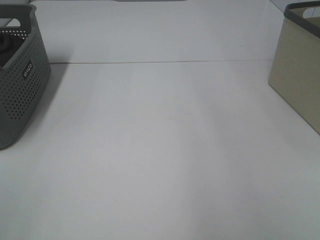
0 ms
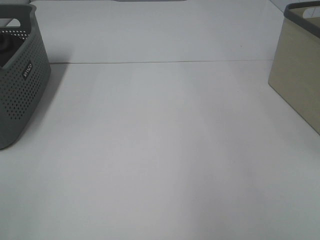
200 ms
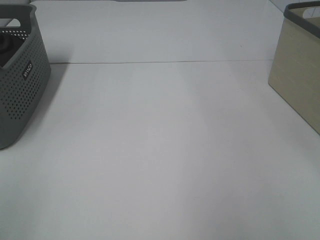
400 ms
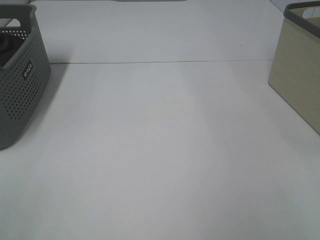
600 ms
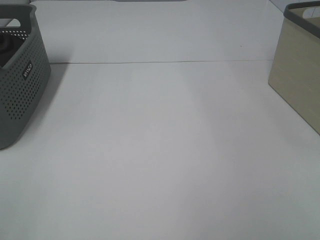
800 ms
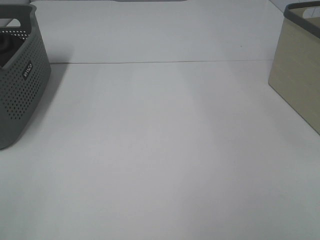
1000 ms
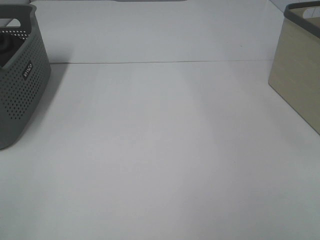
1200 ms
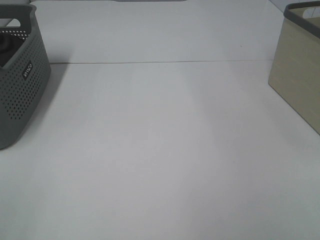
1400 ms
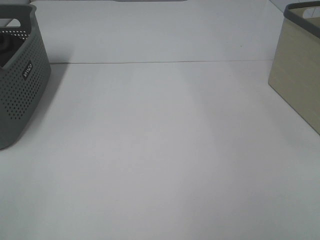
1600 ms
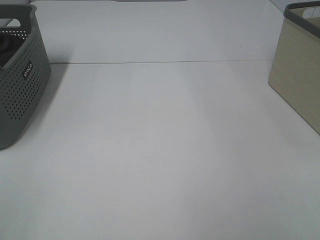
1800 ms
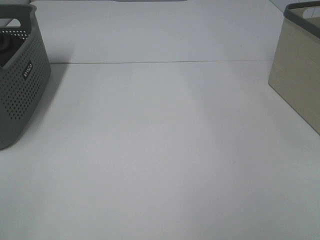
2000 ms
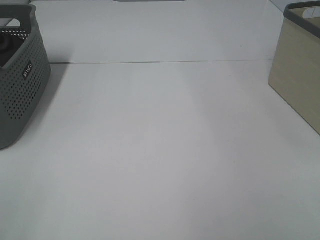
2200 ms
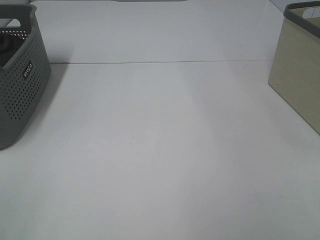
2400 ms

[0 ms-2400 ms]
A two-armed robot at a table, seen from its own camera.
1200 ms to 2400 ms: The two grippers keep their place.

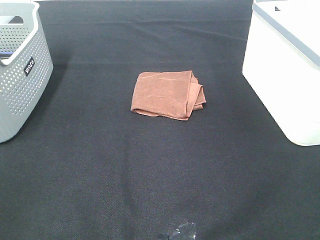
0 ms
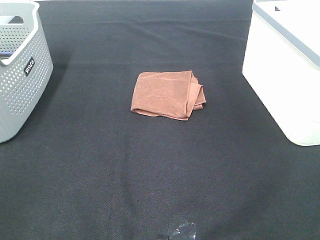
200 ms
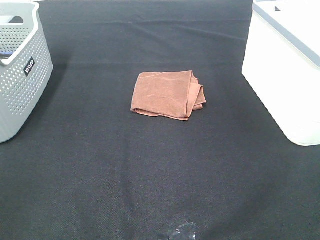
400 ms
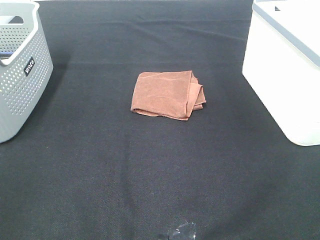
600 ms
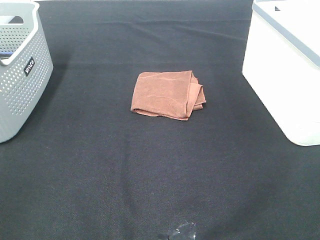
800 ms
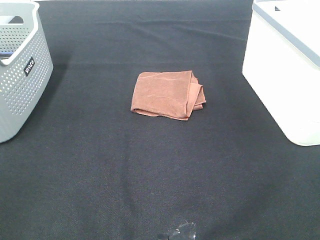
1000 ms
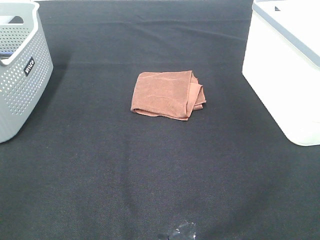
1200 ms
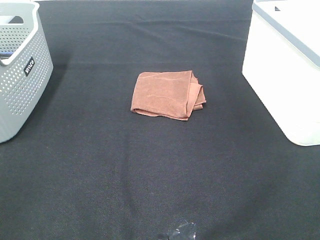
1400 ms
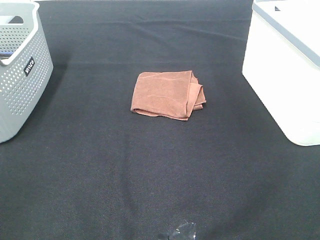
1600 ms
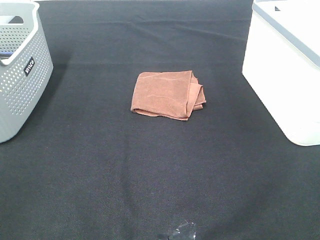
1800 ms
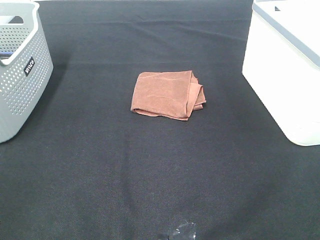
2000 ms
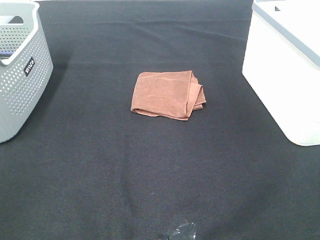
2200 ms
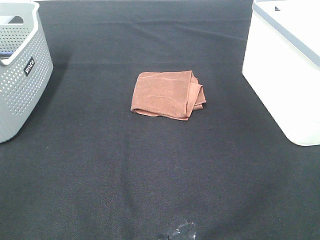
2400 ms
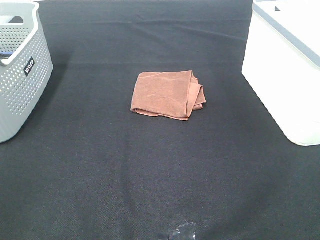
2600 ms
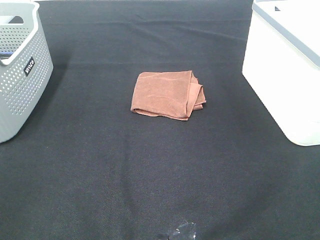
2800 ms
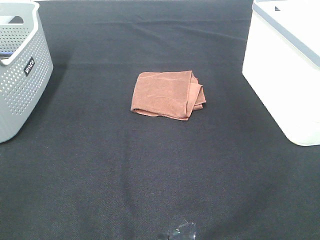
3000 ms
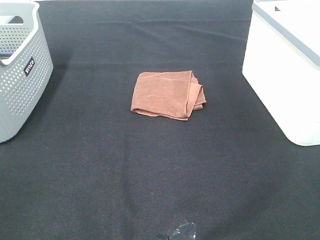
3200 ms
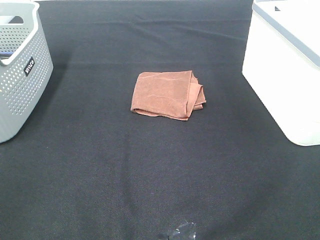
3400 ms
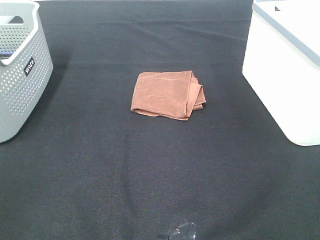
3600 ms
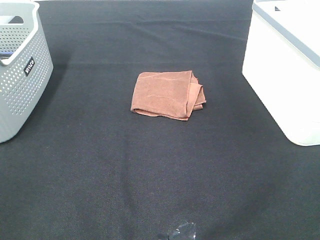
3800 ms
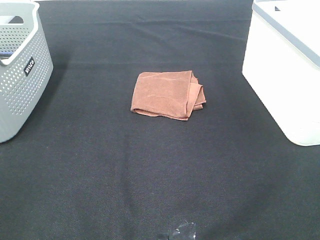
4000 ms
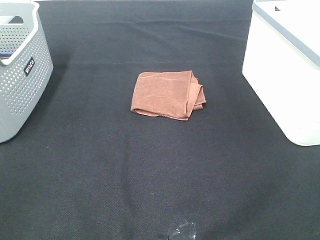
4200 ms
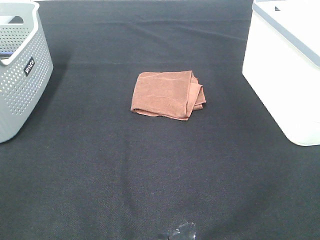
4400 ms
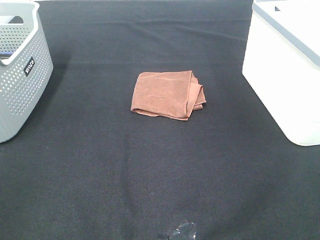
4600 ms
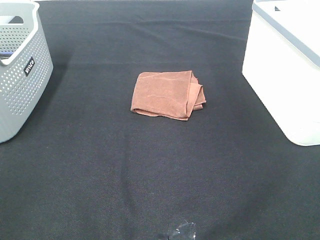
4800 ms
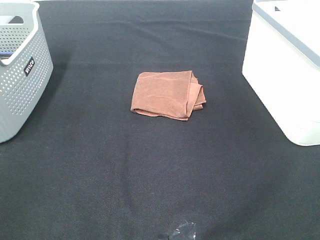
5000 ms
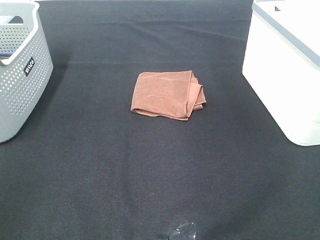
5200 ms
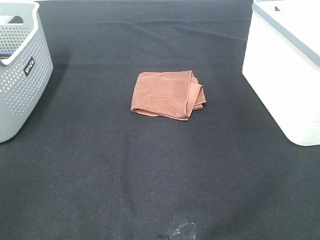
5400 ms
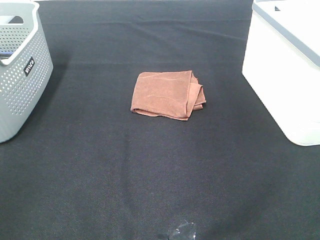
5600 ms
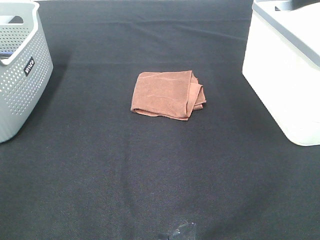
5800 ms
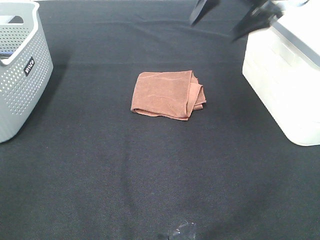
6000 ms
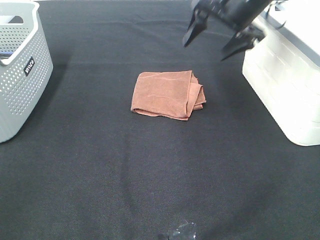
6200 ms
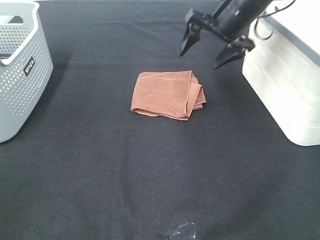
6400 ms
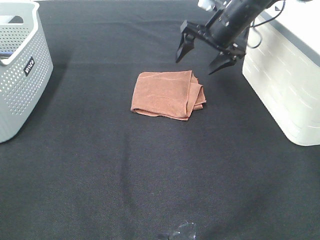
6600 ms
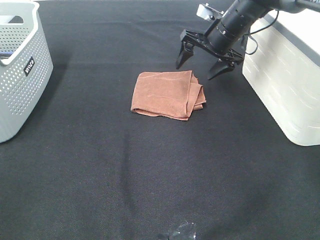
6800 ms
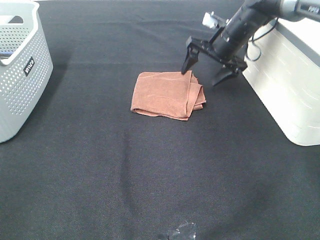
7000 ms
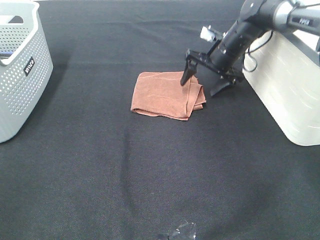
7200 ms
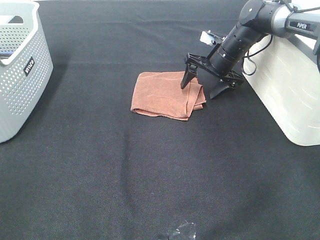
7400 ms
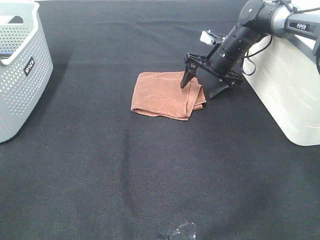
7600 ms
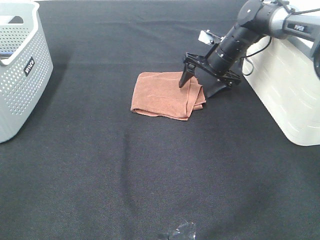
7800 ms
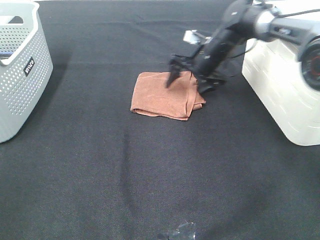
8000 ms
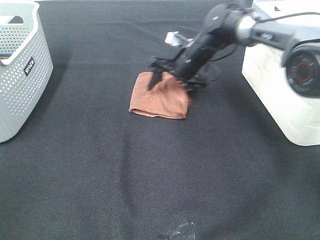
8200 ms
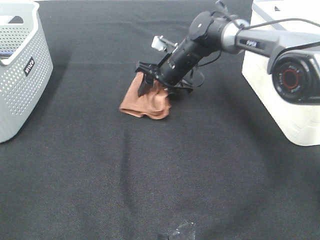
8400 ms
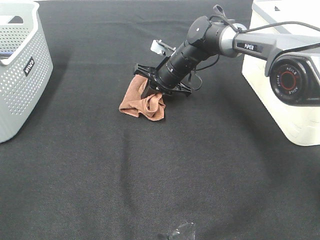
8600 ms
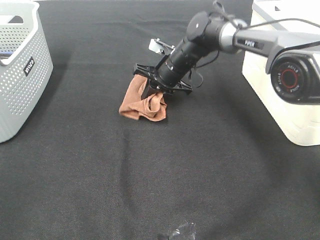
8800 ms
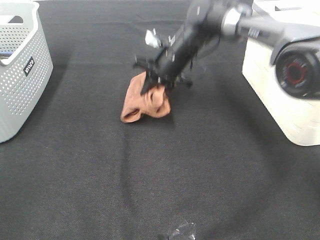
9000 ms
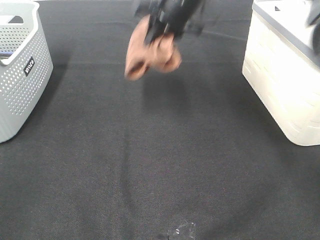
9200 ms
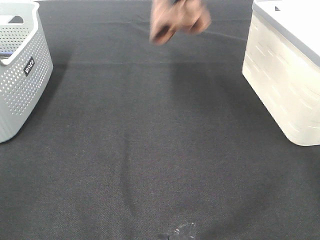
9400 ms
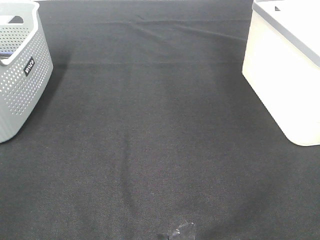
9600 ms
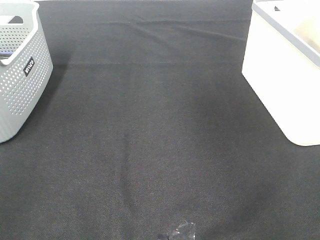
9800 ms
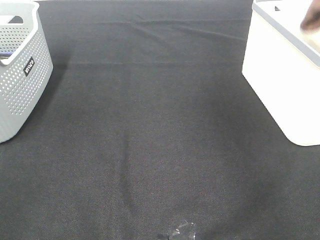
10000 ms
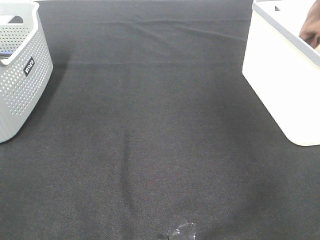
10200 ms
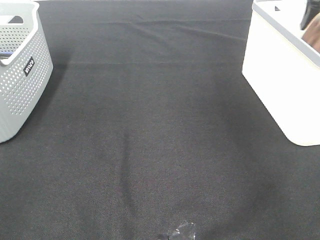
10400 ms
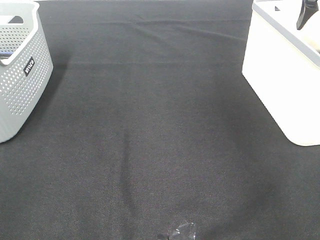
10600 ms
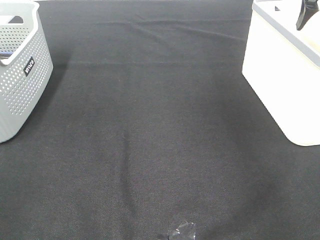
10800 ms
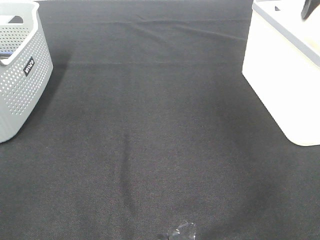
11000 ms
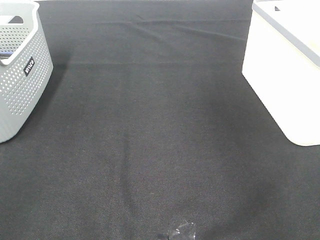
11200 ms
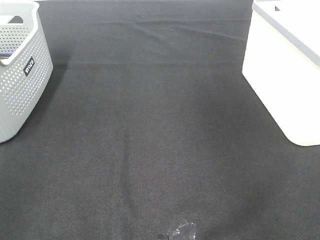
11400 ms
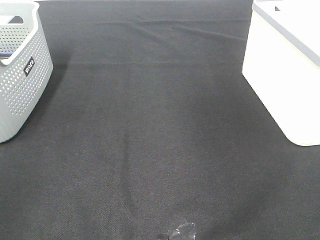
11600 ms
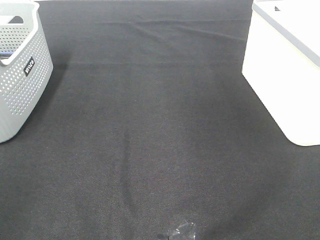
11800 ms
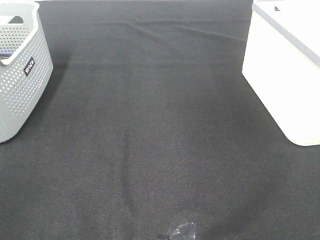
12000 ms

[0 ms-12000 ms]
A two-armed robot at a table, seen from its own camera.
Step, 0 ms to 8600 ms: Right hand: grab the folded brown towel.
Step, 8800 ms to 10400 ms: Right hand: place the brown towel in right basket.
0 ms to 4400 ms: Neither gripper changes place.
4400 ms to 6000 ms: The right gripper moves forward, approximately 40 cm.
6000 ms to 7600 ms: The right gripper travels downward and forward by approximately 20 cm.
7600 ms to 9000 ms: The right gripper is displaced to the left and upward by some 15 cm, and closes up.
9000 ms to 10400 ms: The right gripper shifts some 35 cm to the right and upward, and opens up.
10400 ms to 12000 ms: The right gripper is displaced backward by about 40 cm.

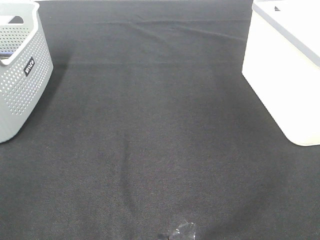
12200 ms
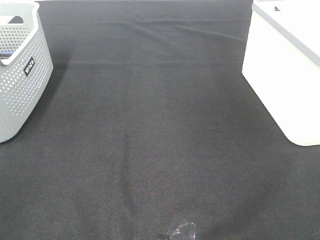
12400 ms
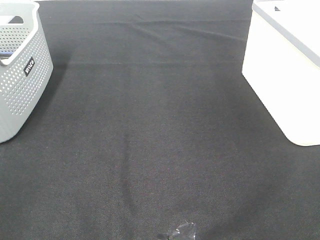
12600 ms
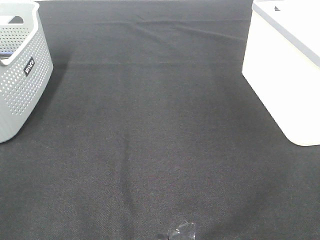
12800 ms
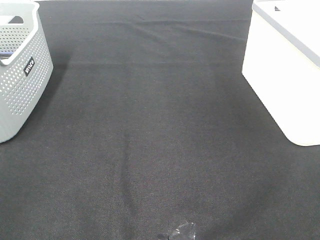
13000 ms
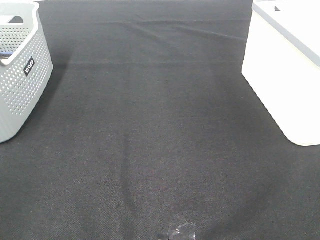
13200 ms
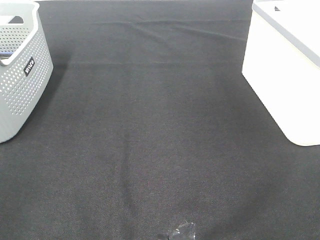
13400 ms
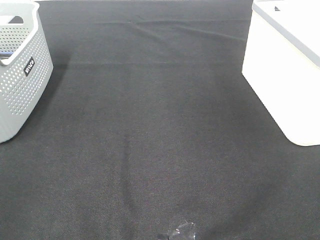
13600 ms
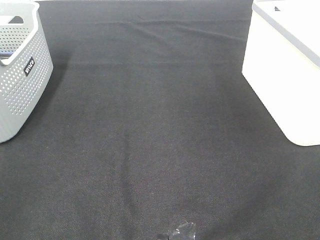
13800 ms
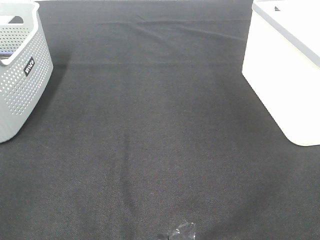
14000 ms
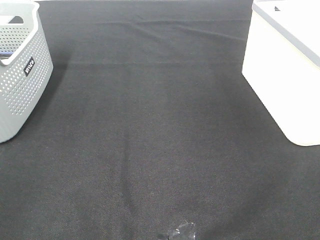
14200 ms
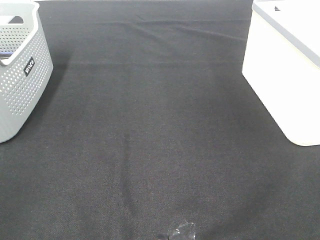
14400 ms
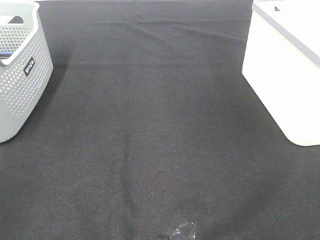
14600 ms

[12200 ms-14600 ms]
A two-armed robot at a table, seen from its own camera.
13400 ms to 14600 ms: Both grippers stay put.

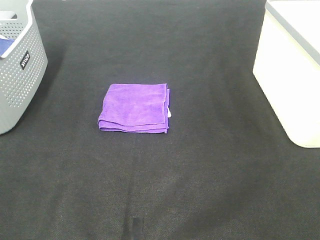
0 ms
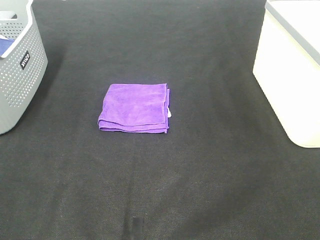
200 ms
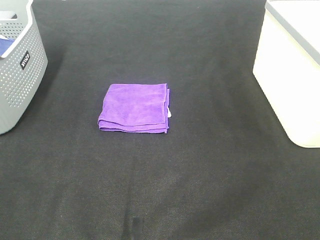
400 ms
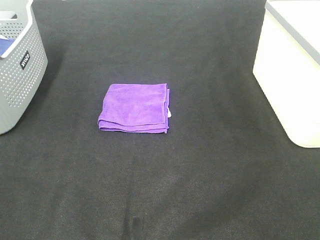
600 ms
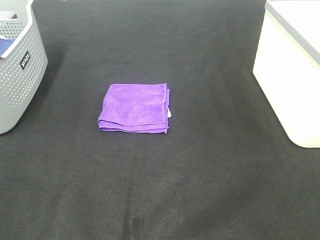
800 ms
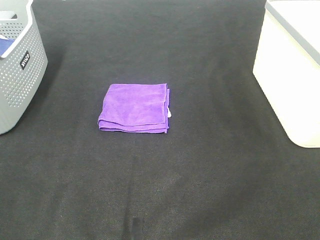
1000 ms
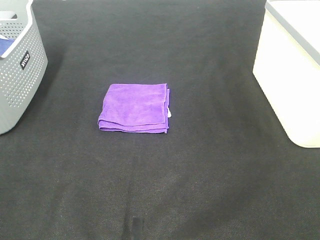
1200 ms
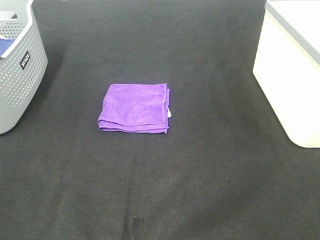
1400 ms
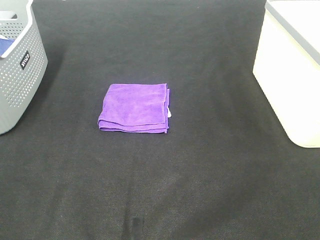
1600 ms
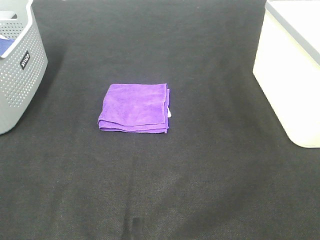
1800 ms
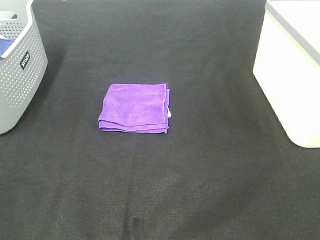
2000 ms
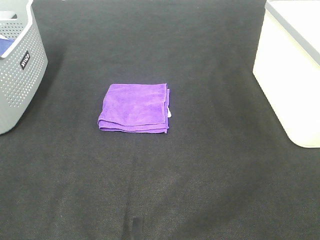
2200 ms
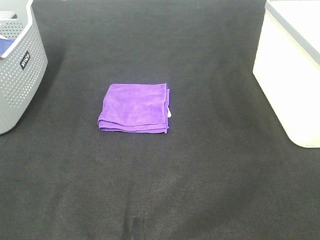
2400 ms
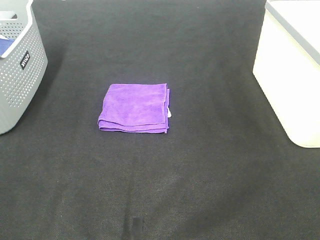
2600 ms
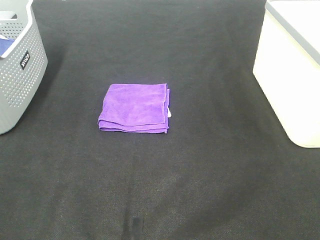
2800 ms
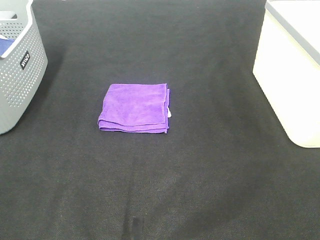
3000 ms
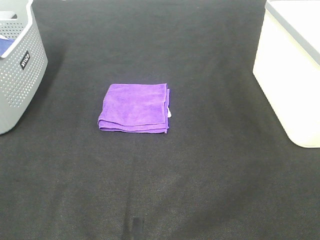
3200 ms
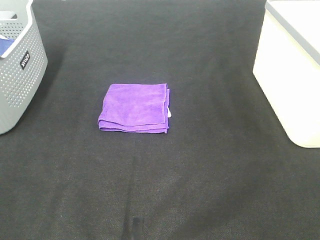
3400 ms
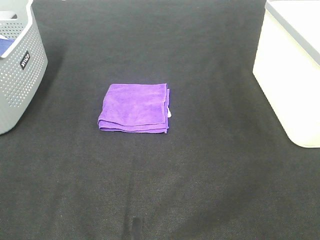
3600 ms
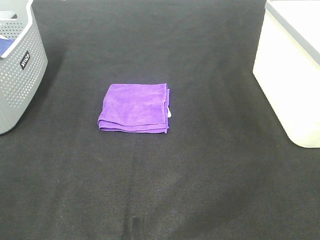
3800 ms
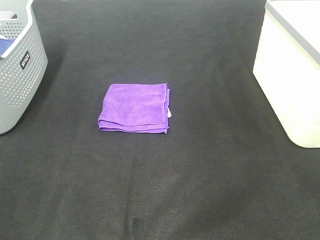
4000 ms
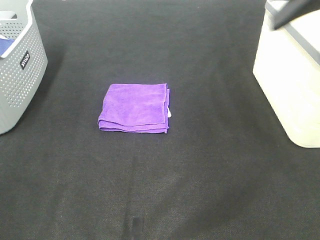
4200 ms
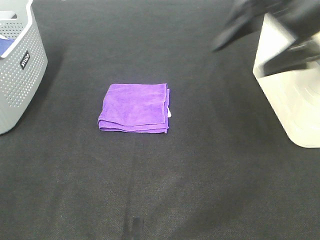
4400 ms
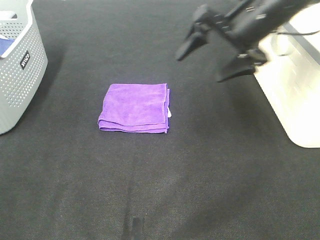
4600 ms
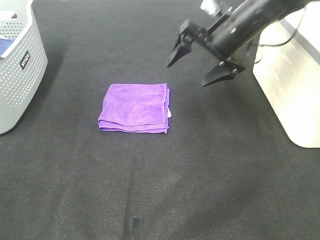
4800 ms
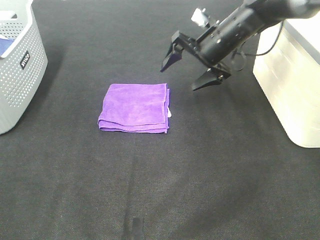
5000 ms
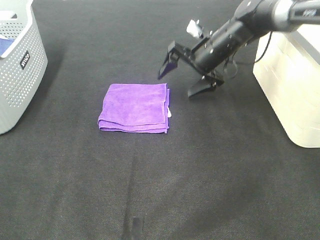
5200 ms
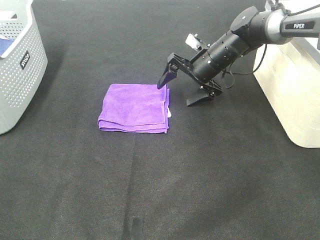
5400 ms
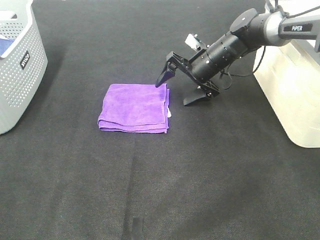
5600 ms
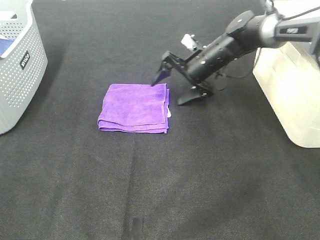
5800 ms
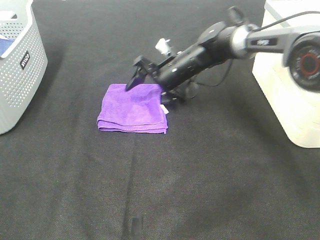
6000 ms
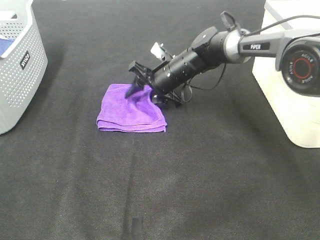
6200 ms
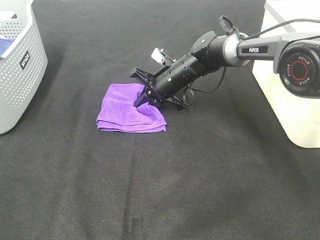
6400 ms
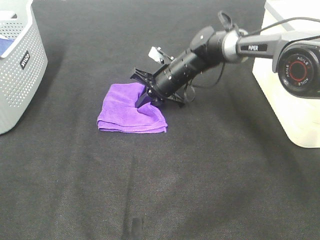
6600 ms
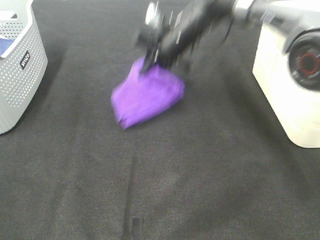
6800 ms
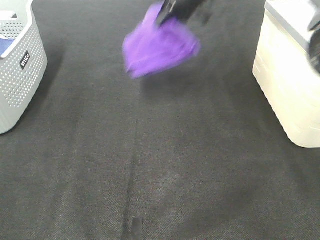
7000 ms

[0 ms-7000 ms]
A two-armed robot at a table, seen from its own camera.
Step, 0 ms to 6400 ms: Right hand: grab the folded purple towel.
0 ms to 2800 ms: The two grippers keep their place.
2800 ms to 4200 ms: The right gripper travels forward by approximately 25 cm.
4200 ms to 5600 ms: The right gripper travels downward, forward and to the left by approximately 35 cm.
5600 ms to 7000 ms: The right gripper moves upward, about 20 cm, and closes up.
